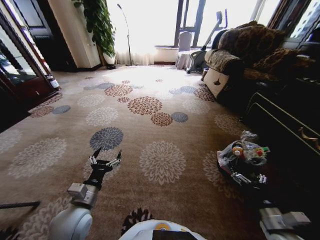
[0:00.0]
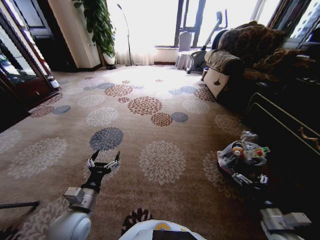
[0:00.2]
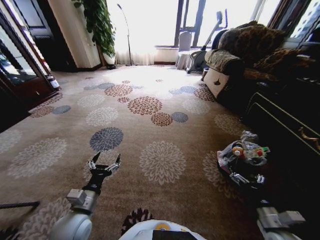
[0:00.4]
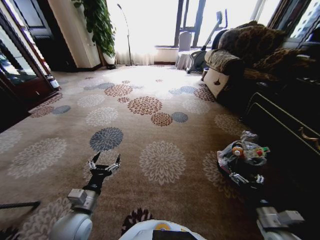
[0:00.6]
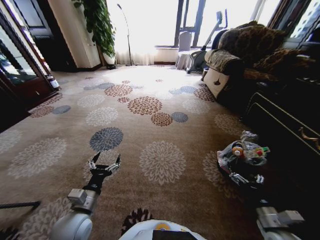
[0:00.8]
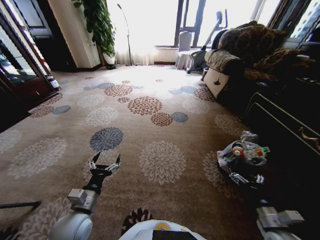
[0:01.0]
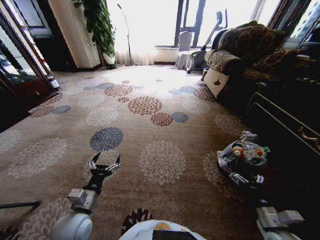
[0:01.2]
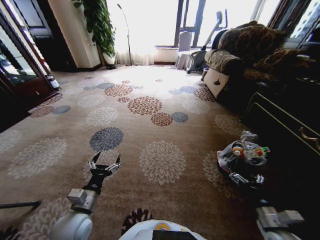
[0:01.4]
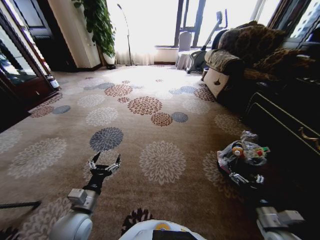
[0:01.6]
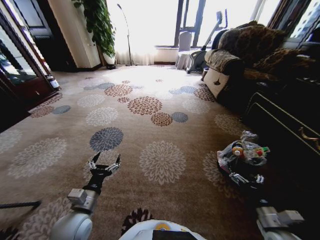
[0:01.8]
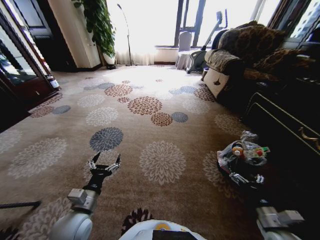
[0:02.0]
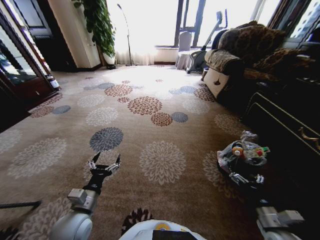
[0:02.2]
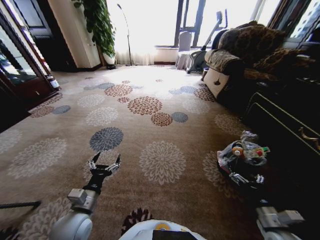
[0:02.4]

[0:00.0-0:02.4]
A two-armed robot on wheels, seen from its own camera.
Task of the whole recording: Pick up the trash from the ground and place it into the trash bin.
0:00.0 to 0:01.2: The grippers make only small movements.
0:01.2 to 0:02.4: Both grippers stay about where they are.
